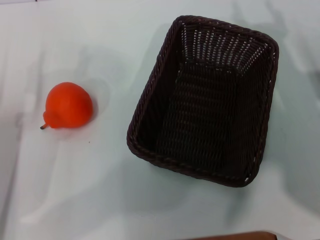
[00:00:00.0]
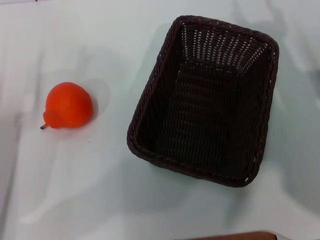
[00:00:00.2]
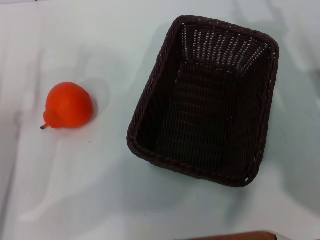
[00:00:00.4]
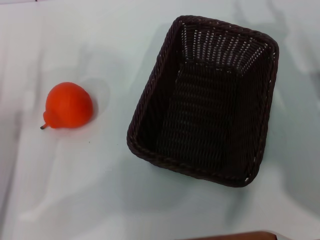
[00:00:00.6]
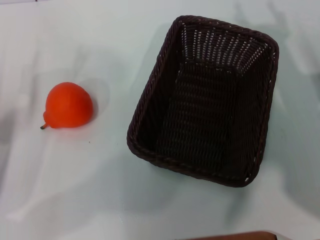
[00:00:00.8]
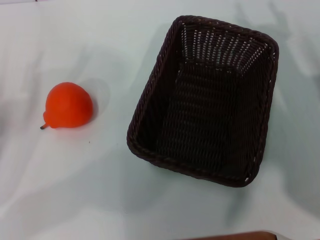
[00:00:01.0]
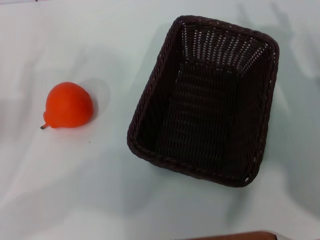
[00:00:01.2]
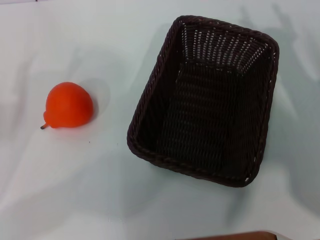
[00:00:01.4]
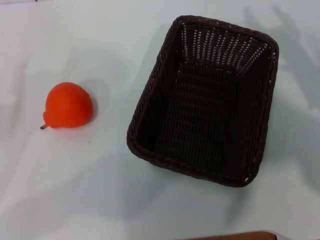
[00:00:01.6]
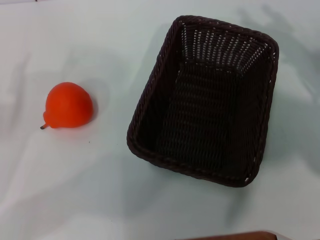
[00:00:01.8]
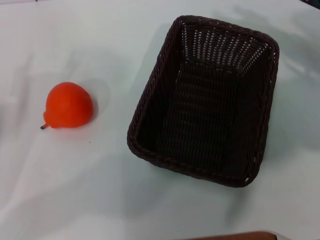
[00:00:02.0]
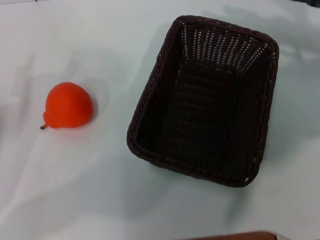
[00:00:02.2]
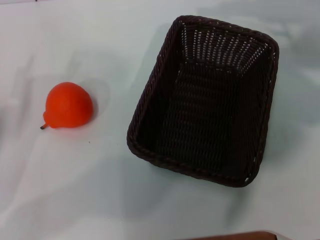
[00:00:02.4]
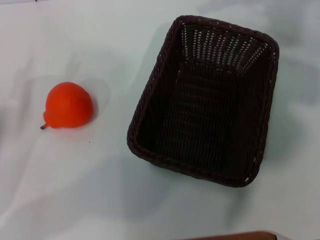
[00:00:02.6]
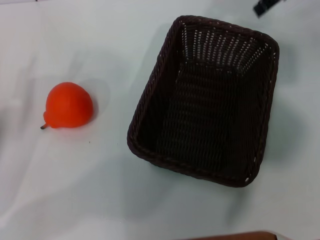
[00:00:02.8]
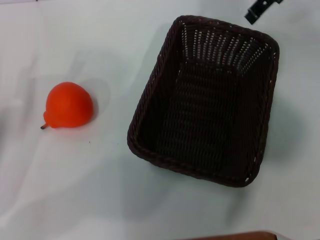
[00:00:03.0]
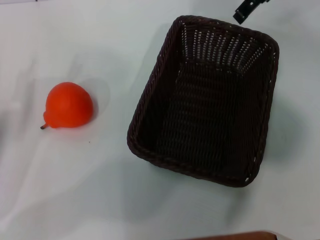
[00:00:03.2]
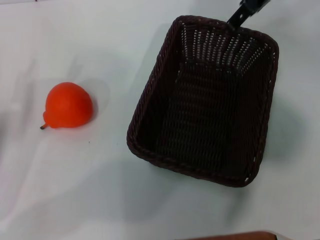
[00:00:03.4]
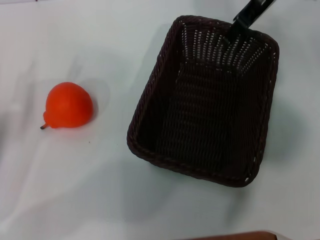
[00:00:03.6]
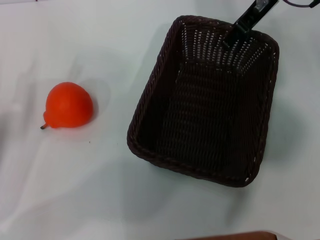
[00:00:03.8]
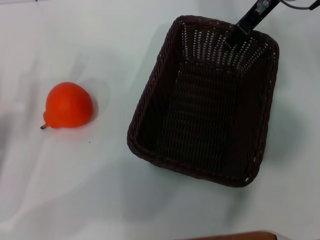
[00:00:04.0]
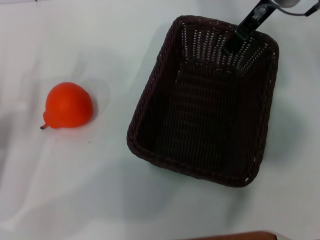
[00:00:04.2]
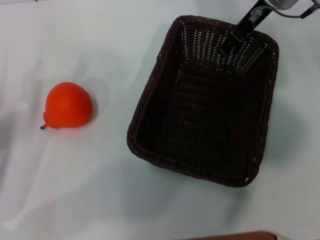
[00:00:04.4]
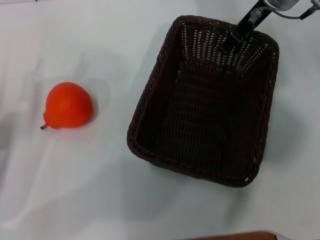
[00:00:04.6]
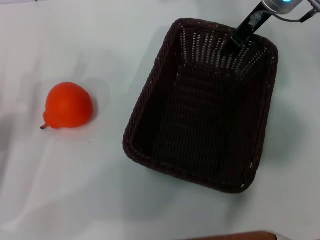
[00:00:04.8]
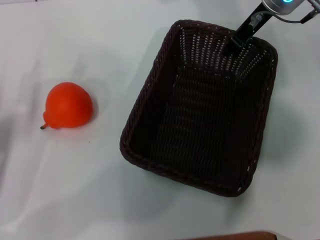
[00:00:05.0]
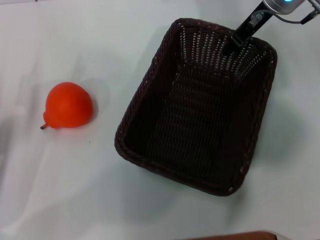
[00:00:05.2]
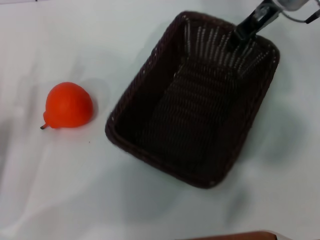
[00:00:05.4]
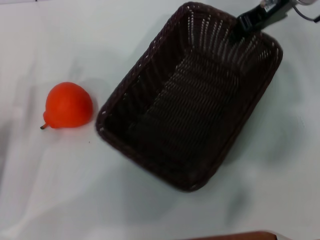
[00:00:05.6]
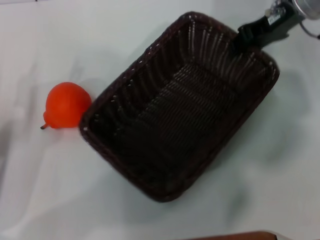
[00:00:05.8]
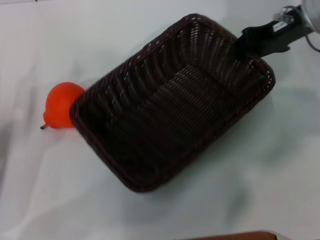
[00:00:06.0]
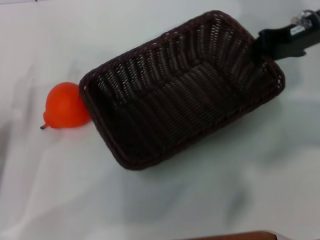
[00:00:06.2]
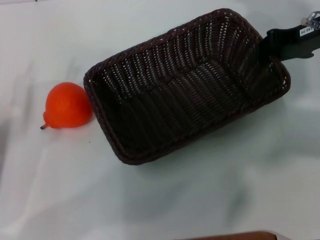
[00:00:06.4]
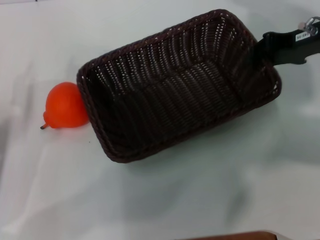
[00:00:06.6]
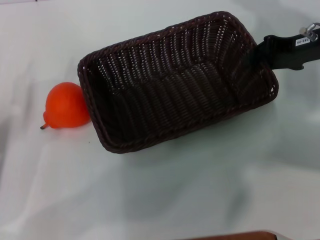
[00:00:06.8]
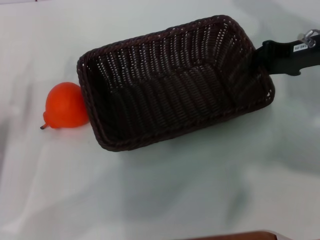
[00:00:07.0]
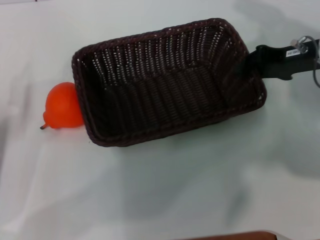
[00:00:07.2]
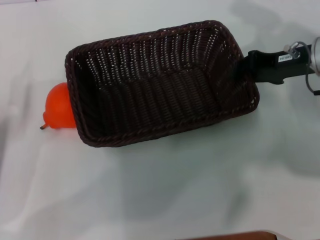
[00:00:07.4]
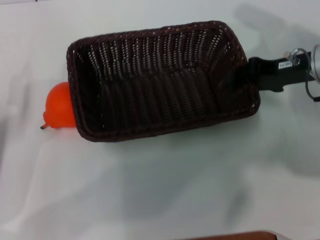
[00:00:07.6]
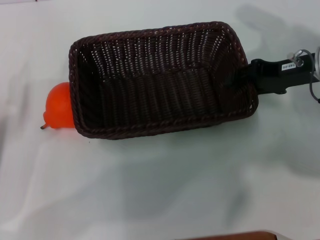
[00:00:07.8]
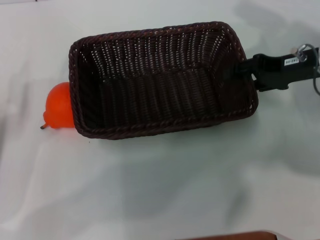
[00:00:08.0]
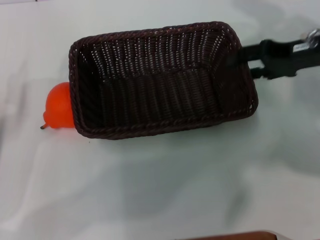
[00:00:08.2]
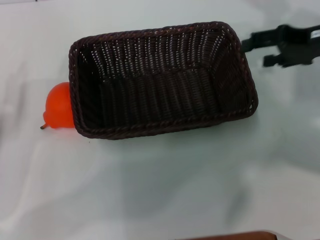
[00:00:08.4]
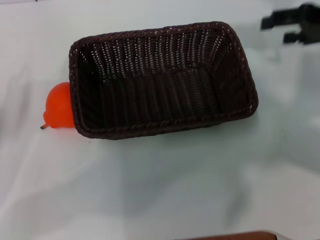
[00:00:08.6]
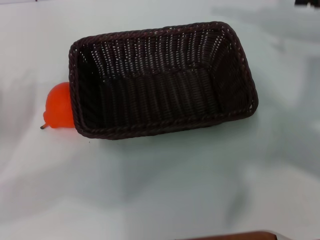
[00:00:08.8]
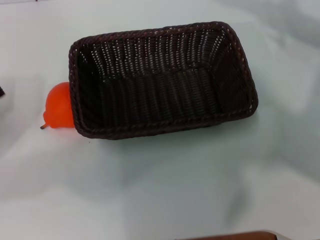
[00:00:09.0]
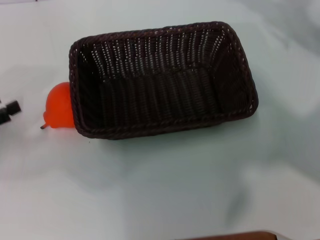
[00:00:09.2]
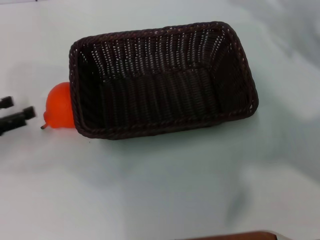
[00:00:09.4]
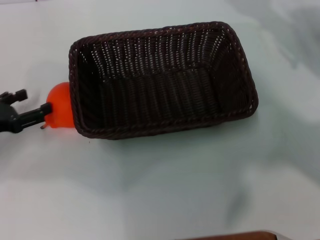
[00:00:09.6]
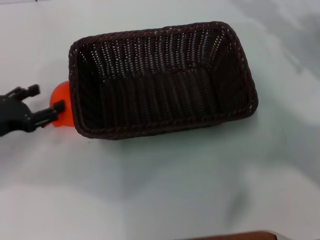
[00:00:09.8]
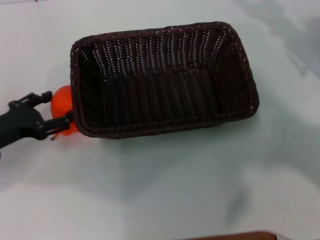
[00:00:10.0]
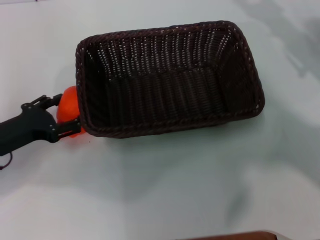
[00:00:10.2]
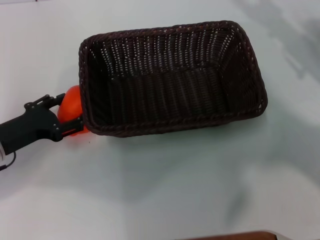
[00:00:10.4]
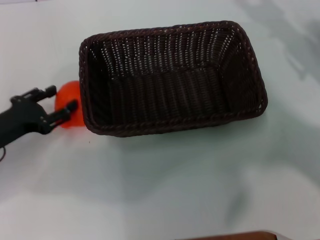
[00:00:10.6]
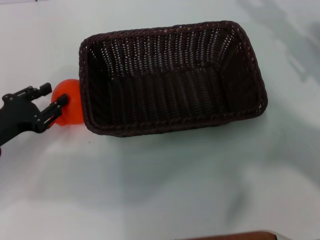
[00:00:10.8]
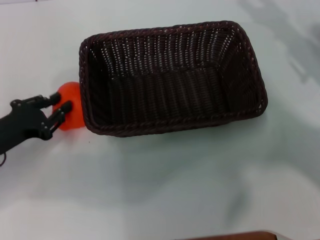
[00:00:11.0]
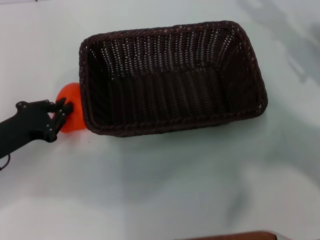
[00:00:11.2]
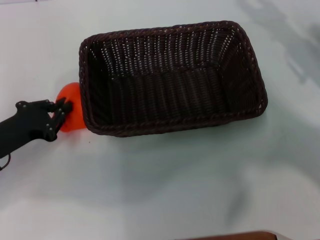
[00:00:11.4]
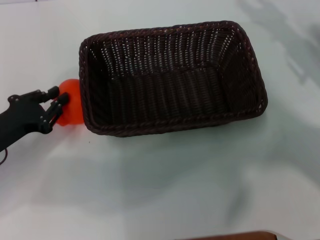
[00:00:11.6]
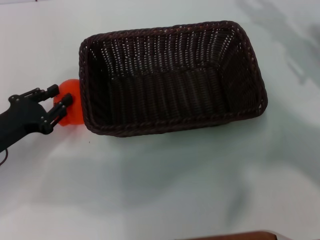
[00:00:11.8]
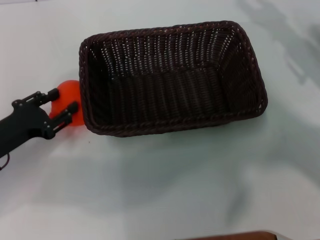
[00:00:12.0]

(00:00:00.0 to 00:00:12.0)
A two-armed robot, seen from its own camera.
Task of the whole recording: the right gripper pick up the black basket and place it horizontally in the middle of the table, the left gripper pick up the orange and place it into the black basket.
Step, 00:00:00.0 - 00:00:05.4: Pick up the dark basket with the right gripper.
Step, 00:00:05.6 - 00:00:08.2: Place the dark basket in the center of view with the right gripper.
00:00:00.0 - 00:00:01.6: The left gripper heads to the left, covering about 5 cm, while the right gripper is displaced to the right by approximately 5 cm.
00:00:01.6 - 00:00:03.0: The right gripper travels upward, forward and to the left by some 30 cm.
00:00:03.0 - 00:00:04.4: The right gripper moves downward, about 10 cm.
00:00:04.4 - 00:00:06.0: The right gripper heads backward and to the right, covering roughly 10 cm, and closes its fingers.
00:00:06.0 - 00:00:07.6: The right gripper heads downward, covering about 5 cm.
00:00:07.6 - 00:00:09.0: The left gripper heads to the left, covering approximately 5 cm, while the right gripper is displaced upward and to the right by approximately 10 cm, and opens its fingers.
00:00:09.0 - 00:00:10.4: The right gripper moves downward, some 10 cm. The left gripper heads to the right, covering some 10 cm.
00:00:10.4 - 00:00:12.0: The left gripper closes its fingers.

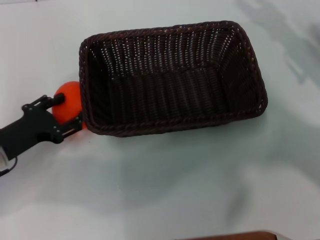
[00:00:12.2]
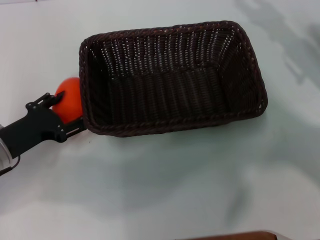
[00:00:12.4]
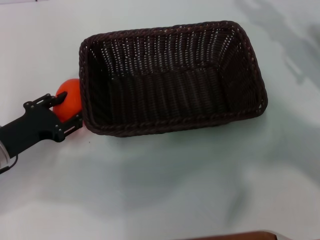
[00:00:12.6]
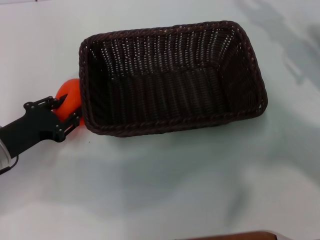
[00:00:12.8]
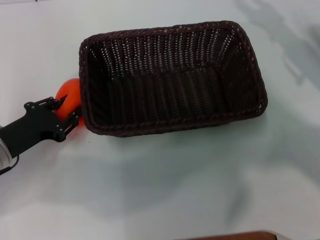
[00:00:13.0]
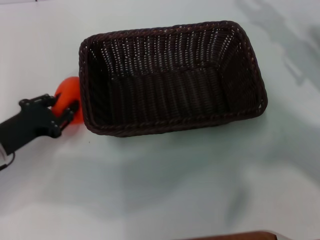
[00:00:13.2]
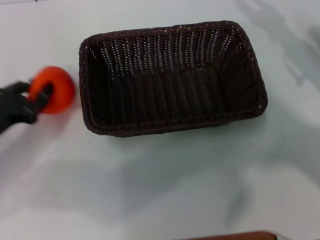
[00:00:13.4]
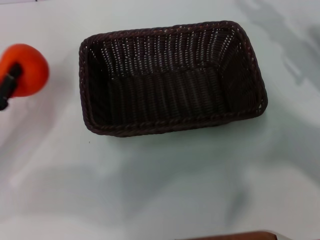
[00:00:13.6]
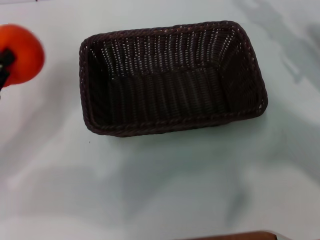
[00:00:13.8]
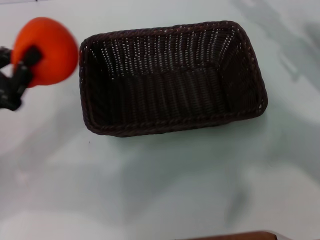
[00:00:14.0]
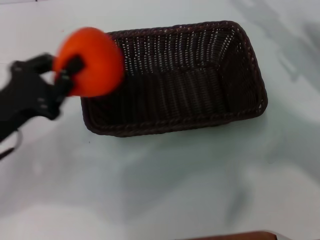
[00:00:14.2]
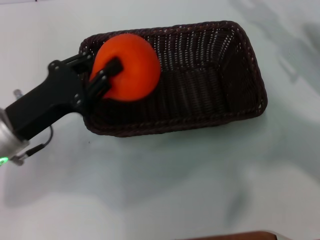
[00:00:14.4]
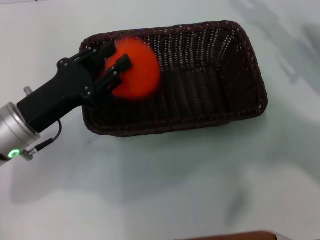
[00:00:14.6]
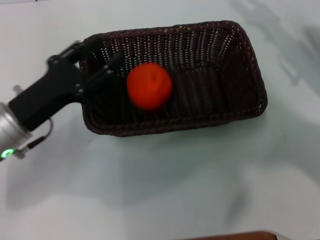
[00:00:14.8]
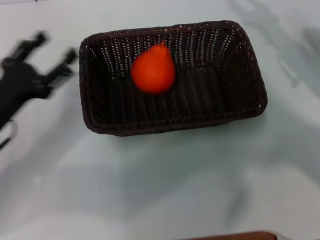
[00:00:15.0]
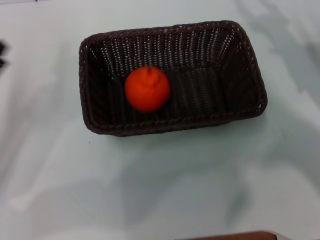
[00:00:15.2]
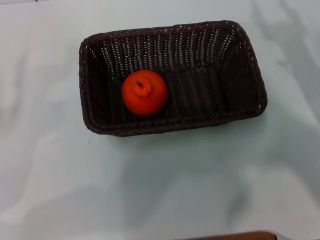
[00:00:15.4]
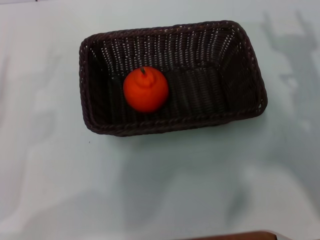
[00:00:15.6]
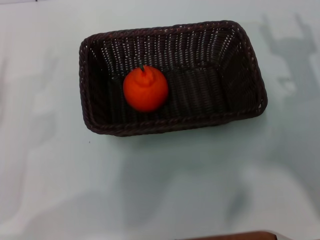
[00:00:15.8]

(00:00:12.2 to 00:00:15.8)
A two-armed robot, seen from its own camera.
Task of the whole recording: the right gripper pick up the black basket and place it horizontally in the middle of the table, the left gripper pick up the orange and place it into the black basket.
Step, 00:00:13.6 - 00:00:14.8: Place the dark basket in the center of view with the left gripper.
00:00:12.2 - 00:00:14.0: The left gripper travels upward by approximately 5 cm, and closes its fingers.
00:00:14.0 - 00:00:15.8: The left gripper shifts approximately 5 cm downward, reaches roughly 10 cm to the right, then returns, and opens its fingers; the right gripper heads backward, covering roughly 10 cm.
